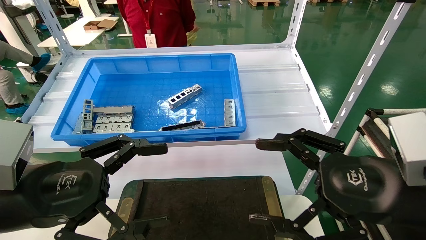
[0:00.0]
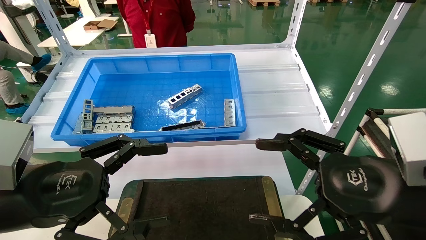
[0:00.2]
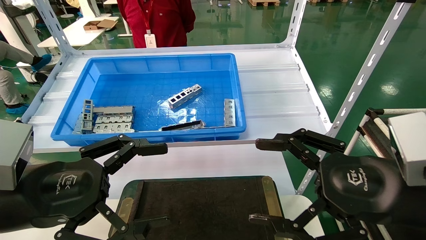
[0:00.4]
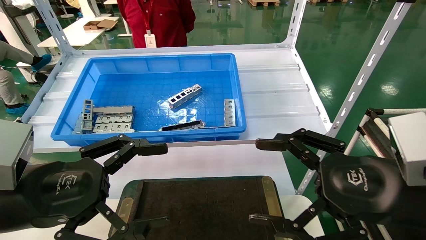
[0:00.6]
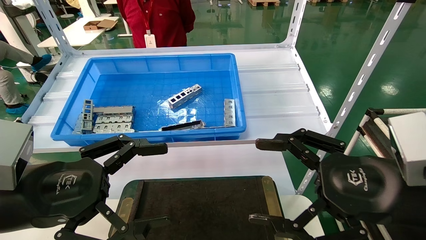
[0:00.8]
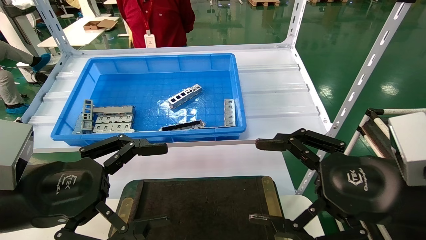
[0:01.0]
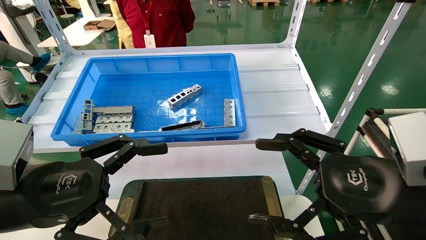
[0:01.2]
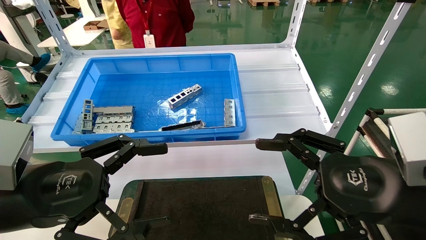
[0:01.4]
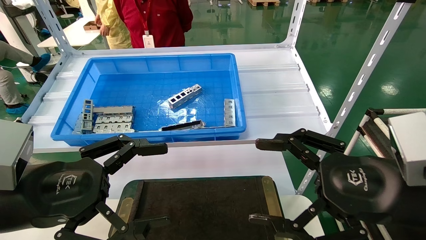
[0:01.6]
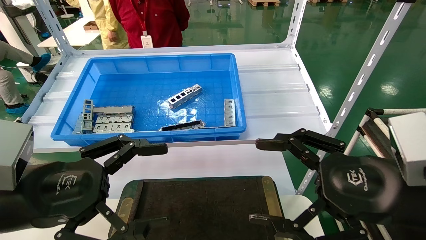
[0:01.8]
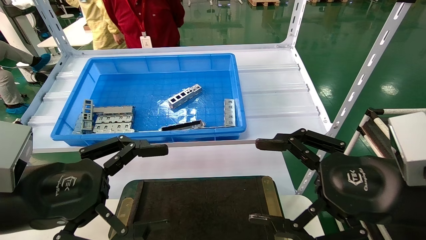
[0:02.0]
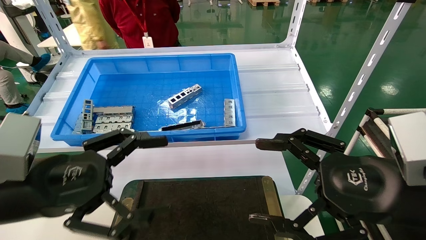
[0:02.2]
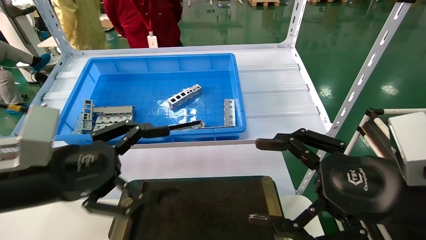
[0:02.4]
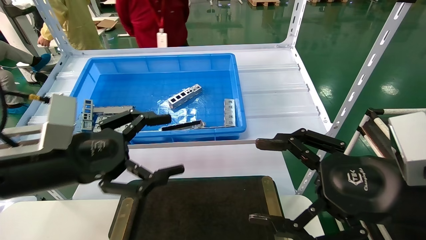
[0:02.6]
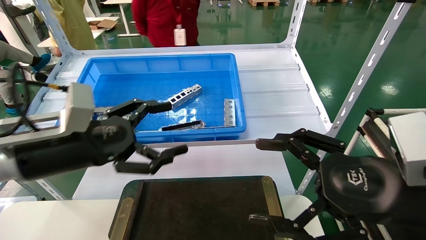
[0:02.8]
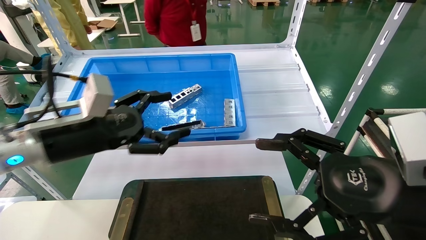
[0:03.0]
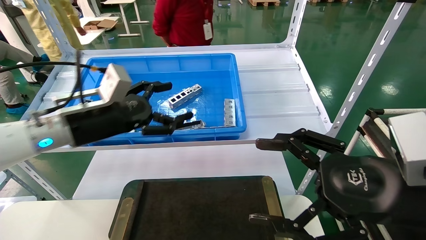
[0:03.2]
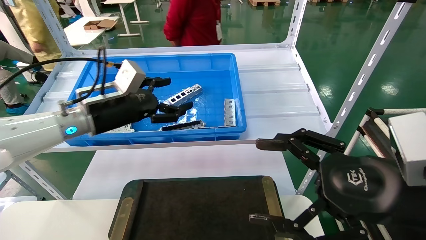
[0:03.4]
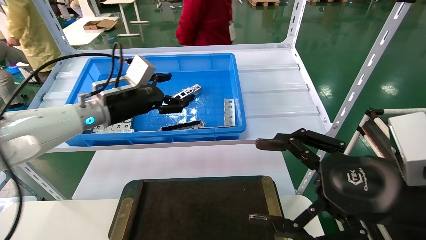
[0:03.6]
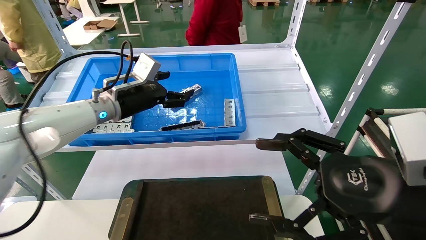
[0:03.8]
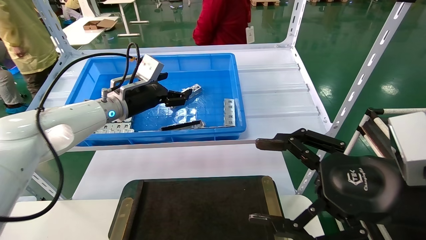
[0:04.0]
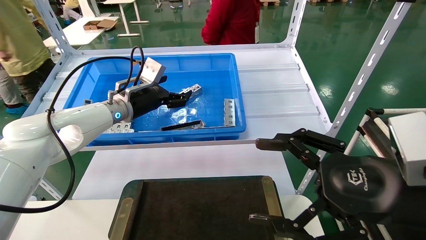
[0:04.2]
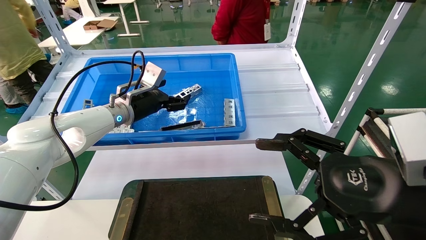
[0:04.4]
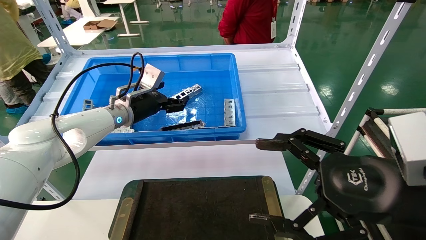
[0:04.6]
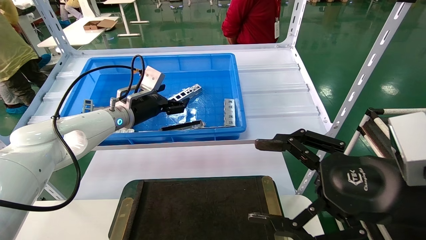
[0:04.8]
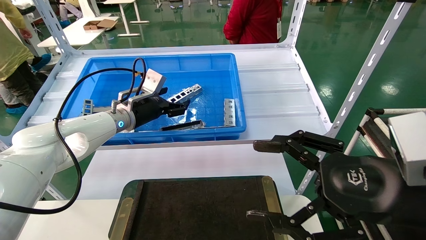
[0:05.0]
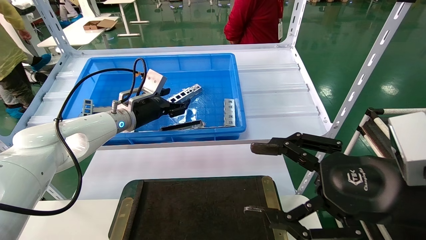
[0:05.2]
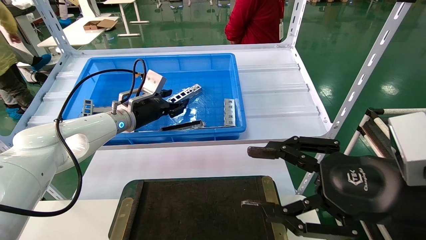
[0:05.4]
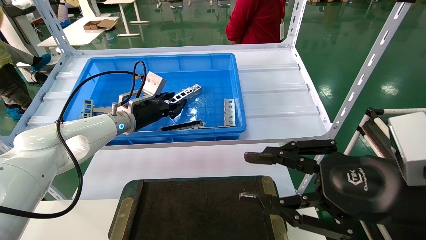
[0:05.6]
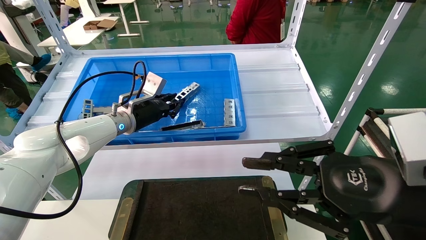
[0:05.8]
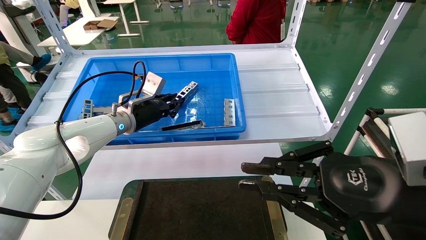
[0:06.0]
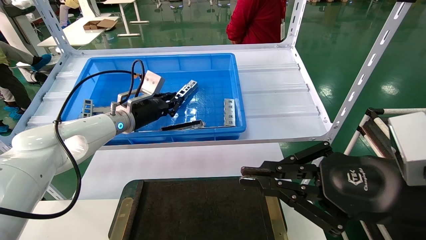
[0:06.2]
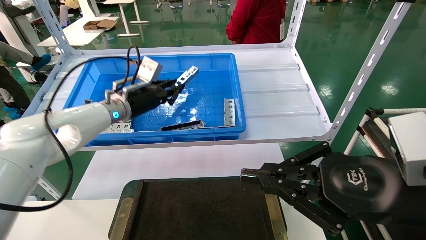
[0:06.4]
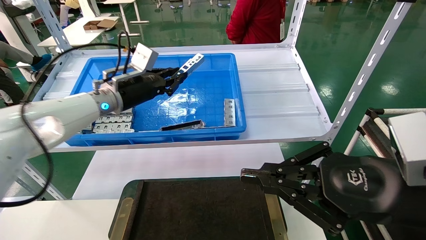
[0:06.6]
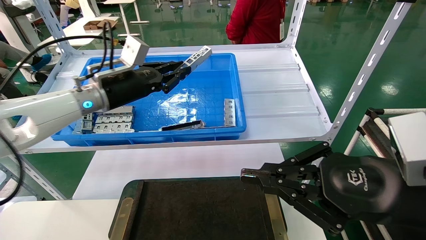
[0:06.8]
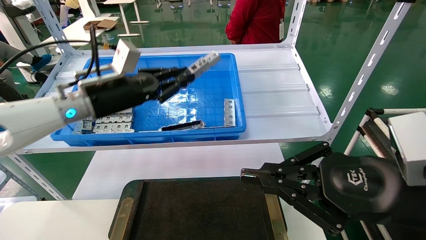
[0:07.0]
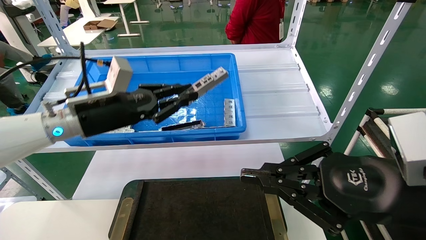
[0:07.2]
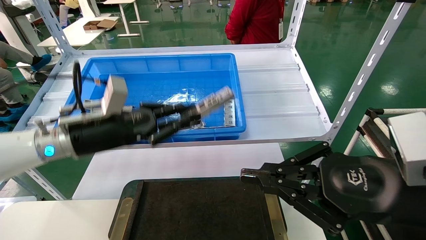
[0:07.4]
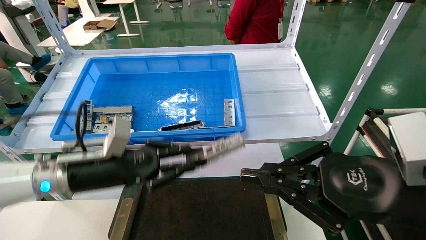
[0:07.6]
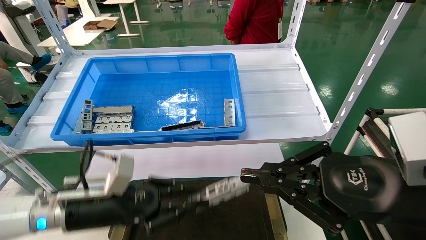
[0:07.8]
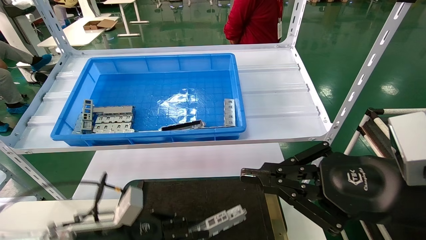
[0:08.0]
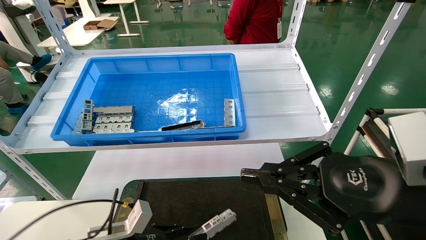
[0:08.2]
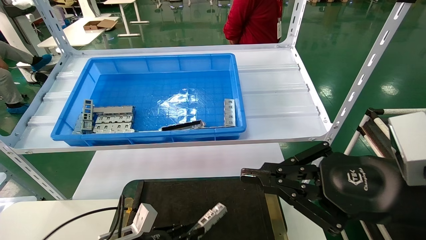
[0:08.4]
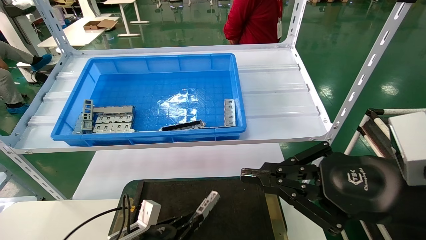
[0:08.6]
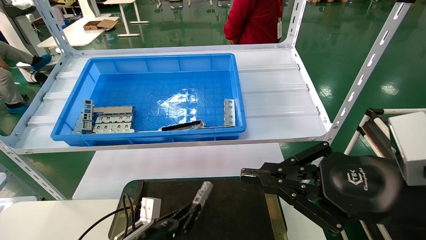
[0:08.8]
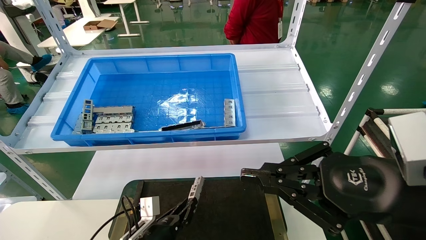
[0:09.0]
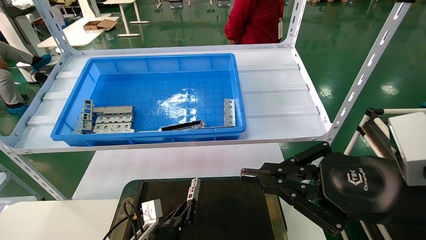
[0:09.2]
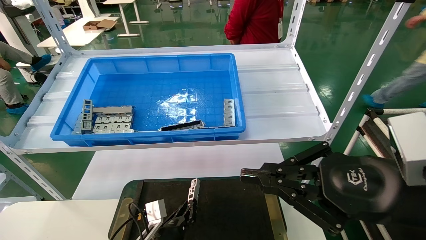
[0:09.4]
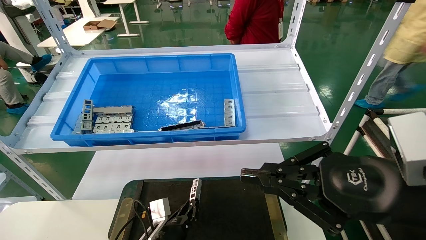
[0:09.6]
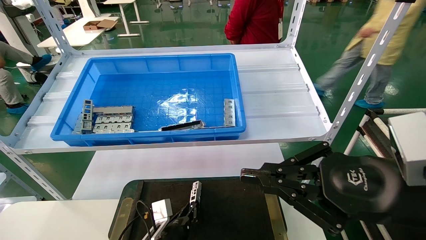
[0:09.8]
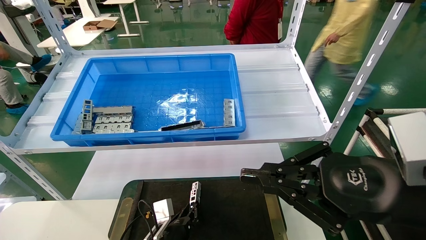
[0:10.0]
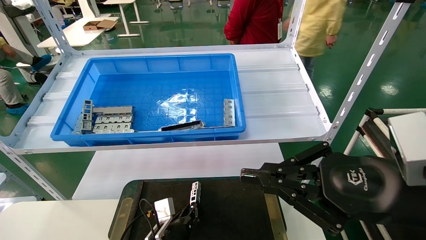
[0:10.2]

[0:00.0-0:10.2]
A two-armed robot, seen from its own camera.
Task of the whole recording: Grasp the part with one hand and place it on the black container.
Step, 0:02.2 to 0:05.8: Pick up the front USB bracket from the feeding area.
0:00.0 to 0:01.4: The two grippers keep their place.
0:01.4 to 0:03.0: The left gripper moves forward, approximately 10 cm.
0:03.0 to 0:04.4: The left gripper heads forward, covering some 20 cm.
0:04.4 to 0:05.8: The right gripper closes its fingers, while the left gripper closes.
0:05.8 to 0:07.2: The right gripper closes. Meanwhile the left gripper shifts roughly 10 cm backward.
0:07.2 to 0:08.8: The left gripper moves downward, roughly 30 cm.
0:08.8 to 0:10.2: The left gripper is displaced to the right by roughly 5 cm.

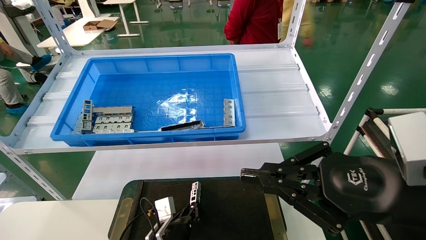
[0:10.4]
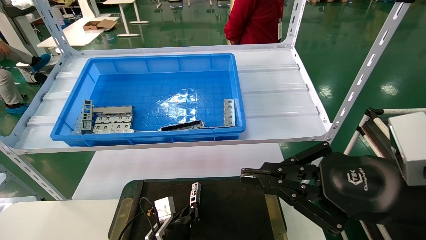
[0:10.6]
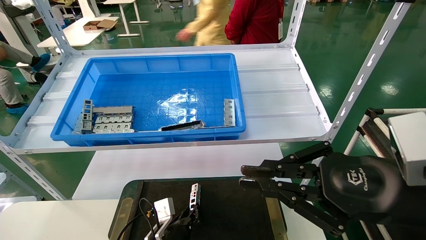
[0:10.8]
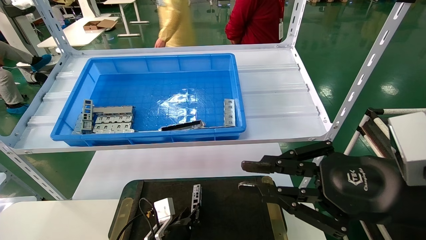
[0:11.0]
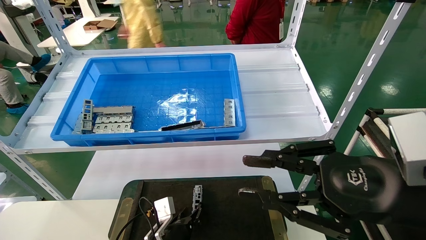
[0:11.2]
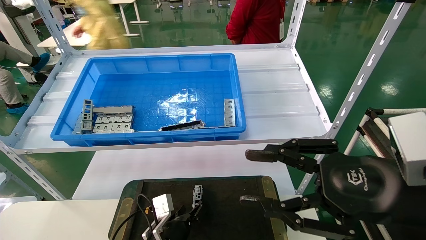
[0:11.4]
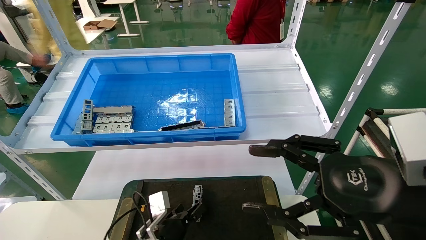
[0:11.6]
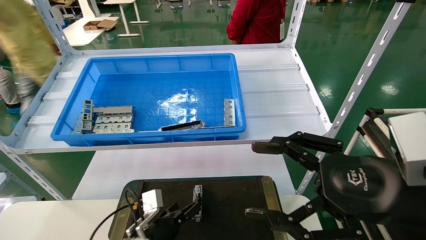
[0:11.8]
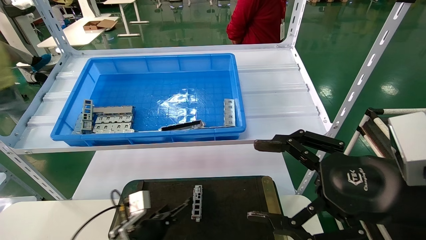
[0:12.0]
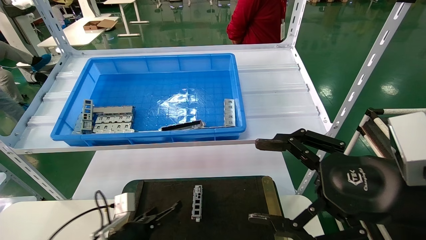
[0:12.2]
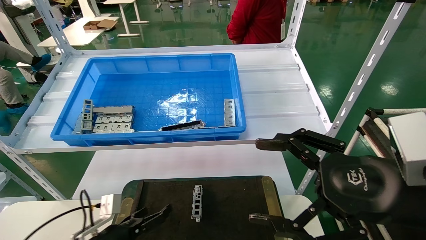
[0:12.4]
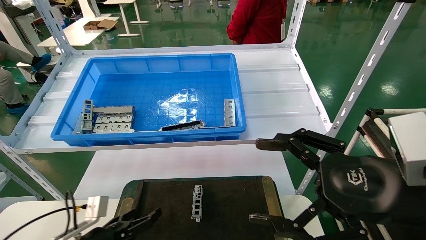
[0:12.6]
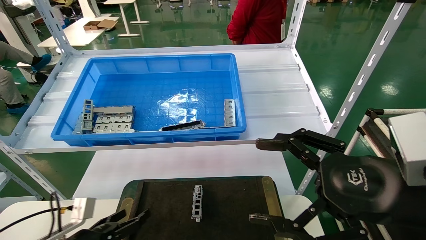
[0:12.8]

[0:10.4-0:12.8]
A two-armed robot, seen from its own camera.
Task of the whole recording: Grasp the part with one hand and place it on the black container.
0:10.4 to 0:11.6: The right gripper opens; the left gripper opens.
0:11.6 to 0:12.8: The left gripper shifts roughly 20 cm to the left, and opens up; the right gripper opens up.
